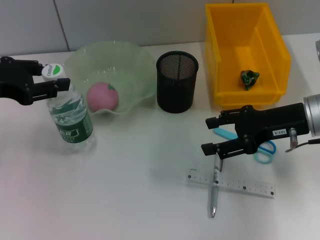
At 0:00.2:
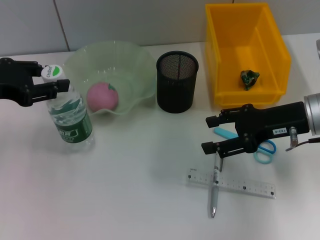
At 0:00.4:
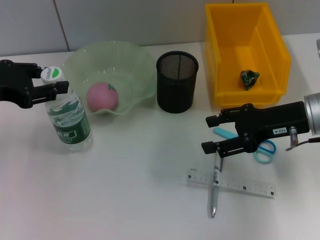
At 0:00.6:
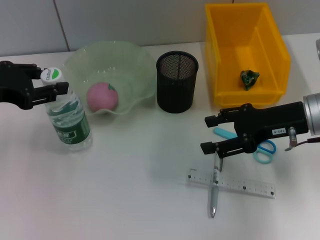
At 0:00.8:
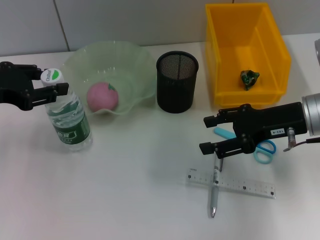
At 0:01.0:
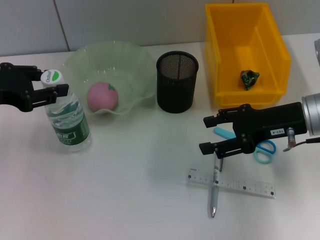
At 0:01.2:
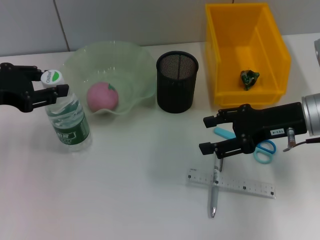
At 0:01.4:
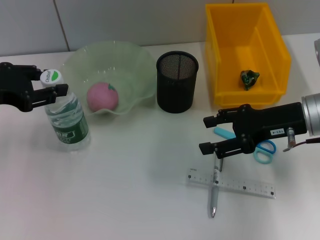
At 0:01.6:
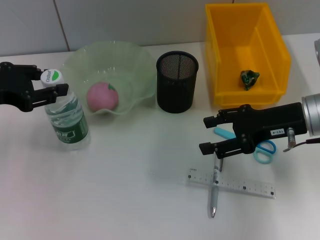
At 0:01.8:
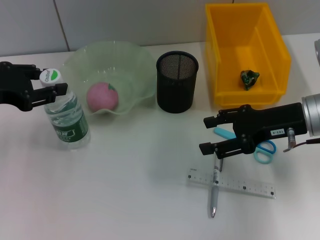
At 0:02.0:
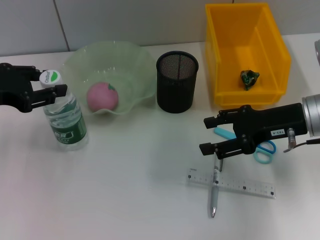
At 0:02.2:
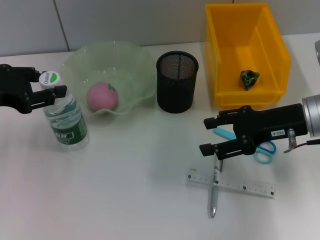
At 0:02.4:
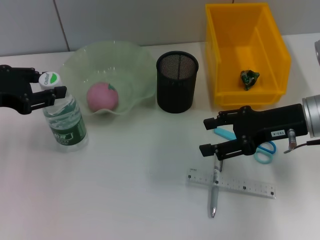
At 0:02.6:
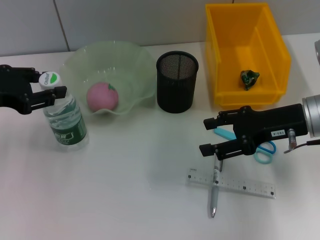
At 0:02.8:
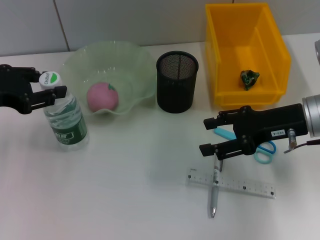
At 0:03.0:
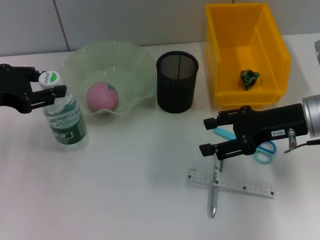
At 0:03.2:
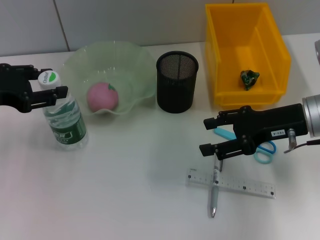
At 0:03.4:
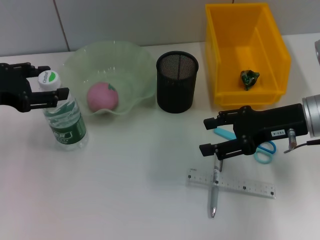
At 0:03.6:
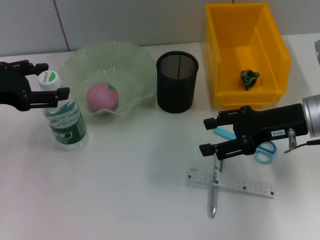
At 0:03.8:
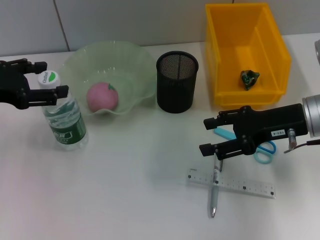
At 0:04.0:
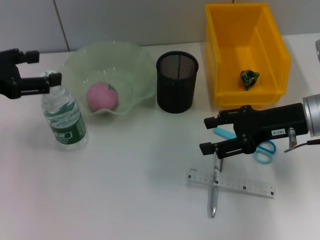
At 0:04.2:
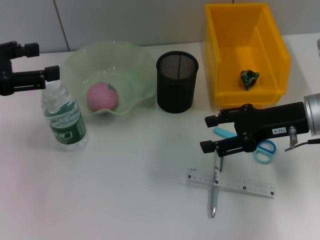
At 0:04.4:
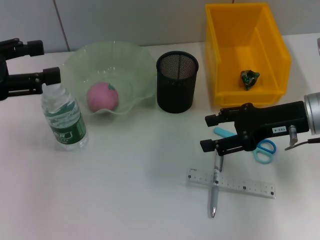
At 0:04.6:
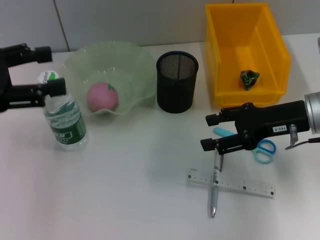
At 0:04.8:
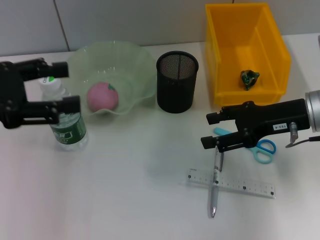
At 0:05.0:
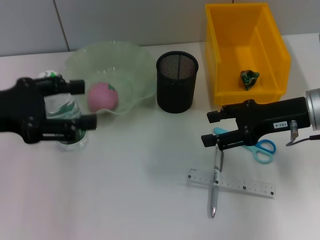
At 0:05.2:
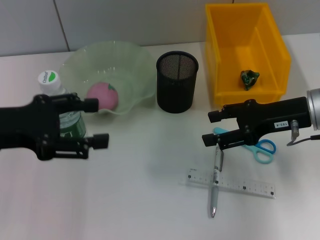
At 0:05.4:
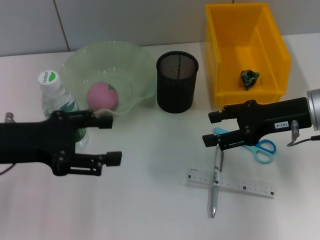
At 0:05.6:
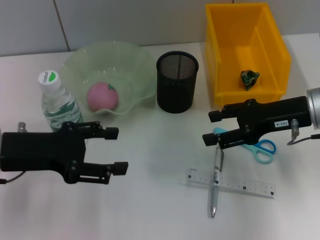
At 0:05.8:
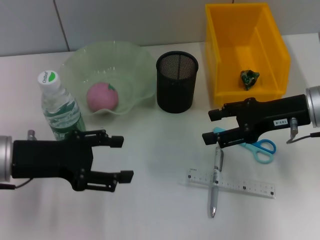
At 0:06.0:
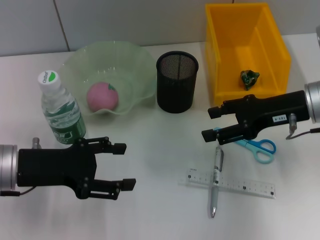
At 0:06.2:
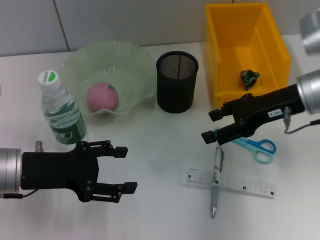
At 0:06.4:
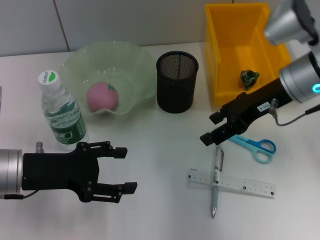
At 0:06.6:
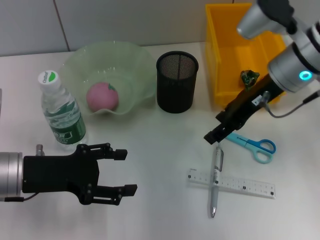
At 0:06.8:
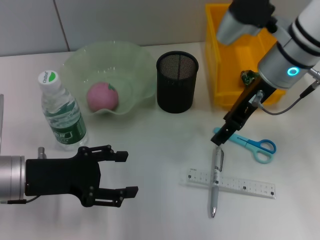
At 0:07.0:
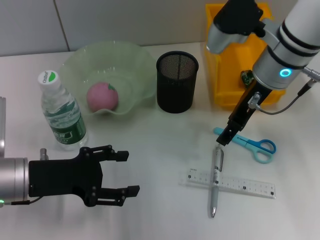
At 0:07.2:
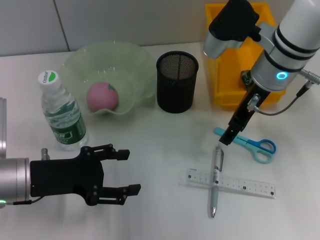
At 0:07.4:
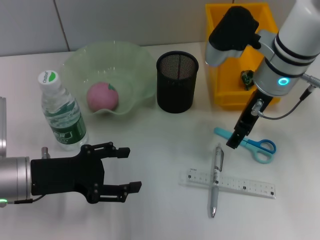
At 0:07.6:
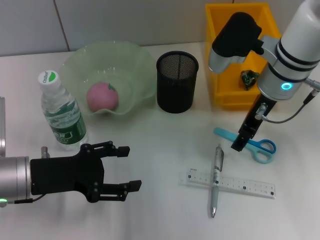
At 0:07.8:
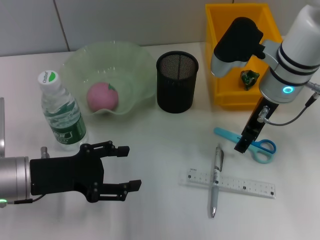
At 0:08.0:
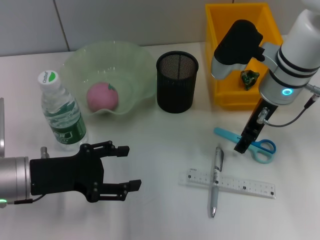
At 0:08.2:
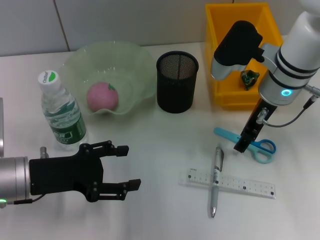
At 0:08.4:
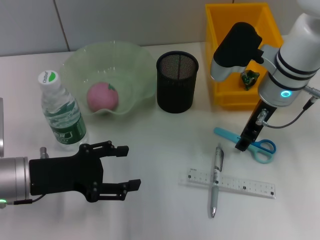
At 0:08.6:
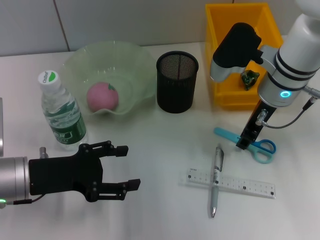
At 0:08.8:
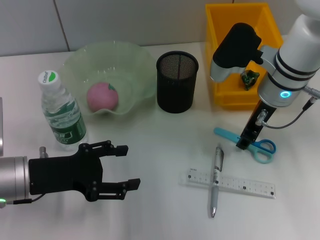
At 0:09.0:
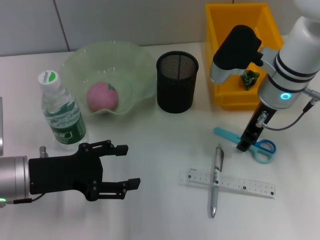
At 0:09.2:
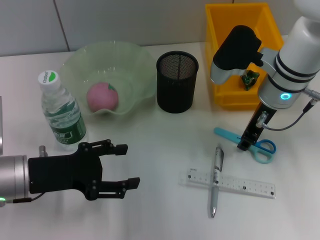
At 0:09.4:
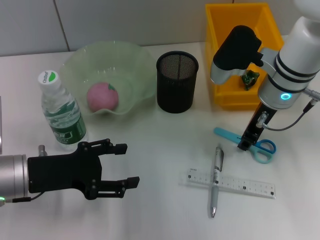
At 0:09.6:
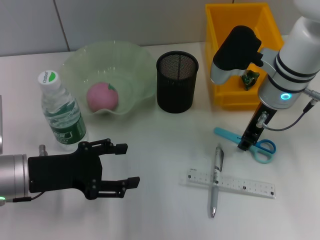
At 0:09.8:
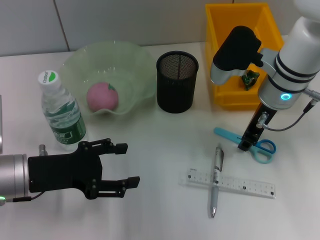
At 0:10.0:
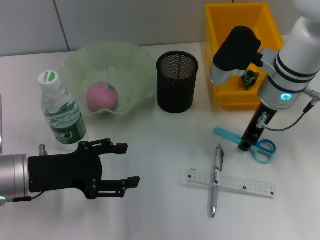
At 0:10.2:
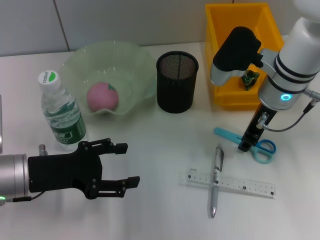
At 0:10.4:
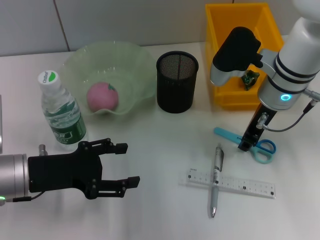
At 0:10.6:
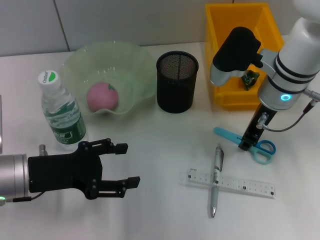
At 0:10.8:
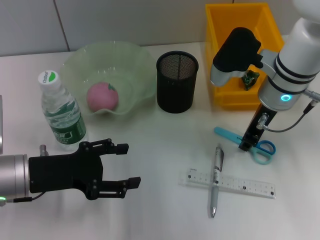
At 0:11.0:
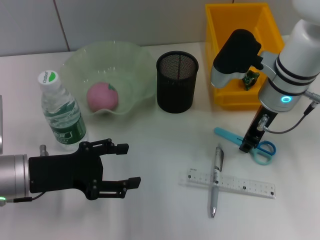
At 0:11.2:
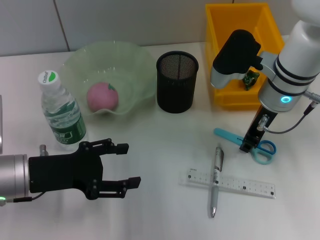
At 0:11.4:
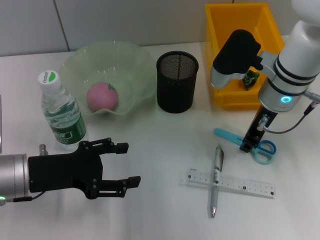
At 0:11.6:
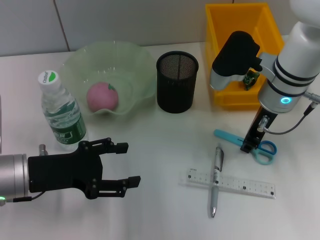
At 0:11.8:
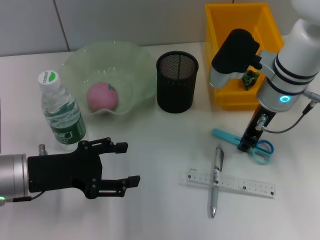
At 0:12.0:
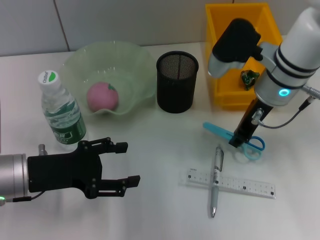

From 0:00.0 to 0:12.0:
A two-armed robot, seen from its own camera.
Step, from 0:00.0 to 0:03.6: Place the water bottle on the table with the left hand.
Step, from 0:03.8 to 0:11.4: Grab the blue utility knife with the right hand.
From 0:00.0 to 0:01.6: Both grippers stay about where they are.
From 0:01.6 to 0:03.0: Neither gripper changes place.
From 0:03.0 to 0:04.4: The left gripper moves roughly 5 cm, and opens.
From 0:04.4 to 0:06.0: The left gripper shifts about 15 cm downward and to the right.
From 0:06.0 to 0:07.6: The right gripper shifts roughly 10 cm to the left and forward.
From 0:07.6 to 0:09.0: The right gripper closes up.
From 0:09.0 to 0:10.4: The two grippers keep their place.
From 0:10.4 to 0:12.0: The grippers make only small movements.

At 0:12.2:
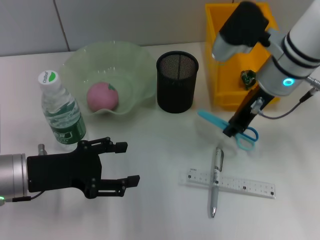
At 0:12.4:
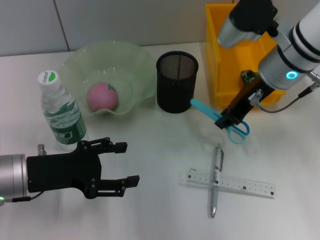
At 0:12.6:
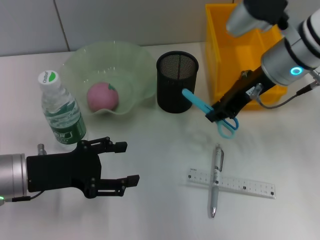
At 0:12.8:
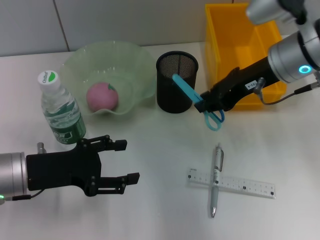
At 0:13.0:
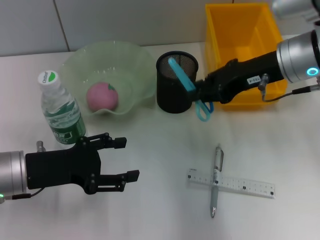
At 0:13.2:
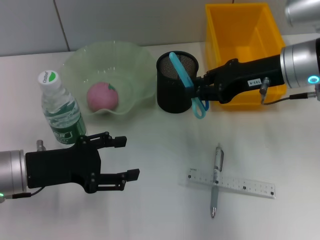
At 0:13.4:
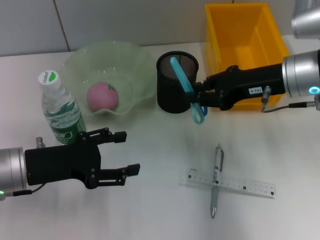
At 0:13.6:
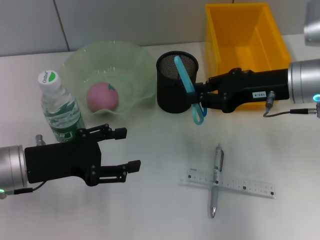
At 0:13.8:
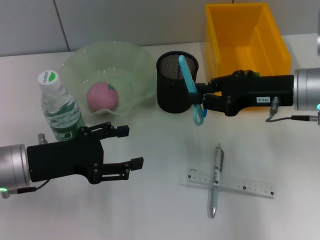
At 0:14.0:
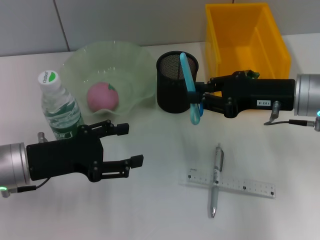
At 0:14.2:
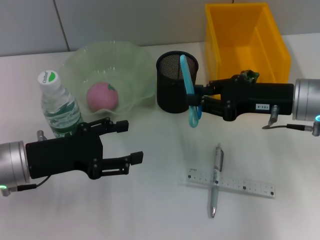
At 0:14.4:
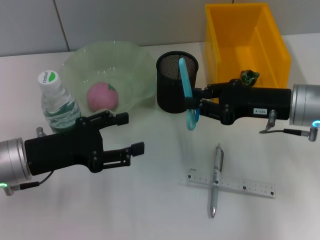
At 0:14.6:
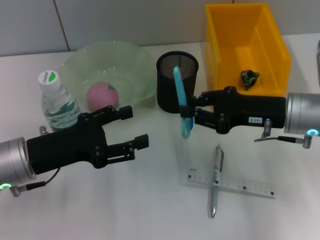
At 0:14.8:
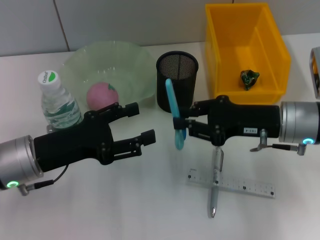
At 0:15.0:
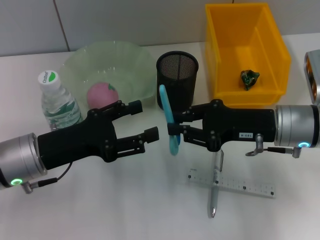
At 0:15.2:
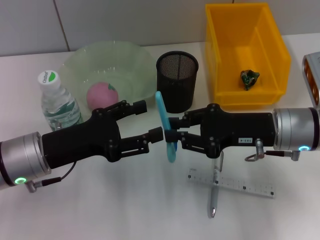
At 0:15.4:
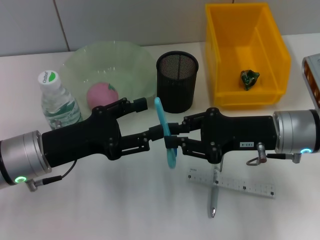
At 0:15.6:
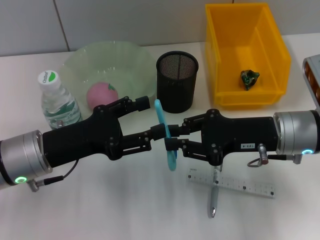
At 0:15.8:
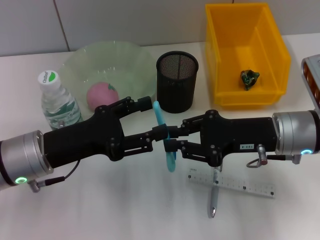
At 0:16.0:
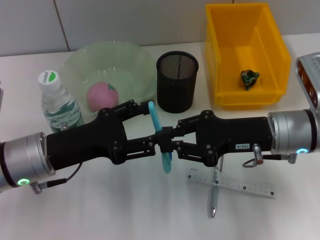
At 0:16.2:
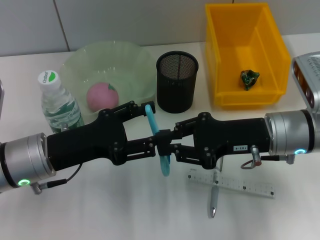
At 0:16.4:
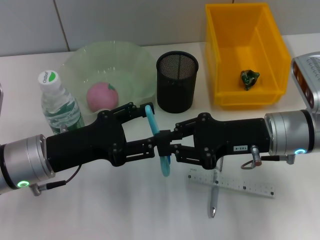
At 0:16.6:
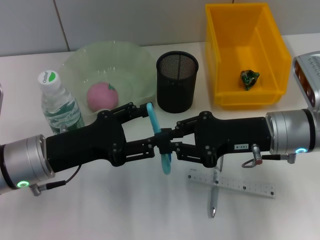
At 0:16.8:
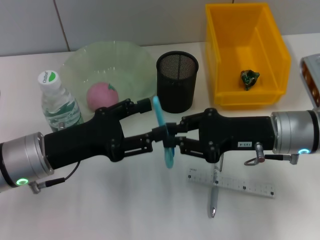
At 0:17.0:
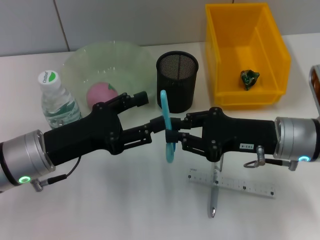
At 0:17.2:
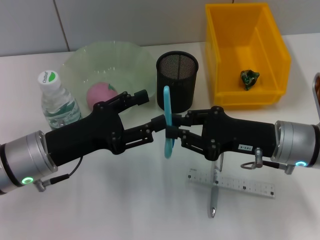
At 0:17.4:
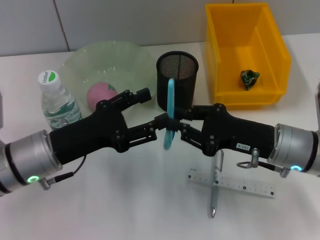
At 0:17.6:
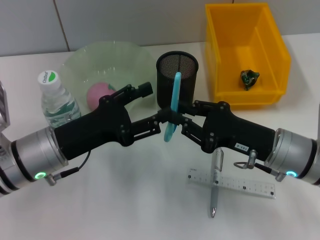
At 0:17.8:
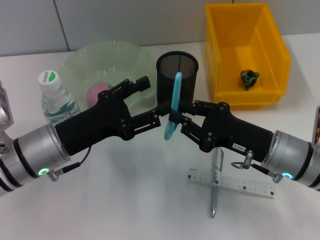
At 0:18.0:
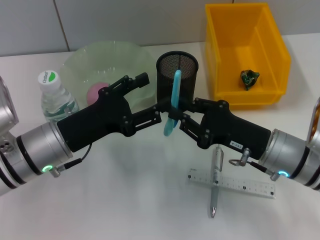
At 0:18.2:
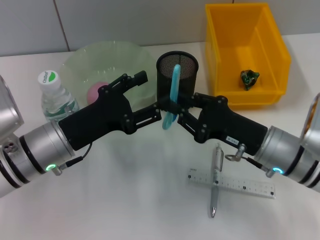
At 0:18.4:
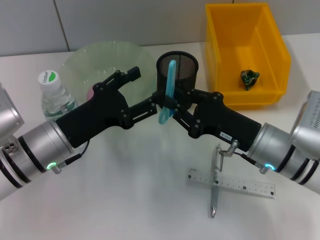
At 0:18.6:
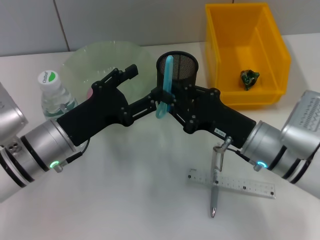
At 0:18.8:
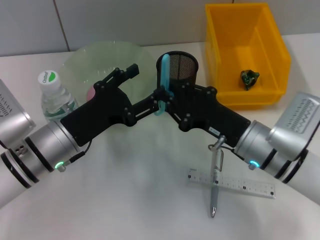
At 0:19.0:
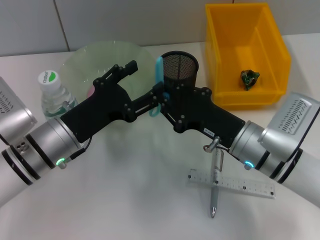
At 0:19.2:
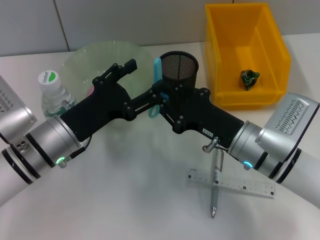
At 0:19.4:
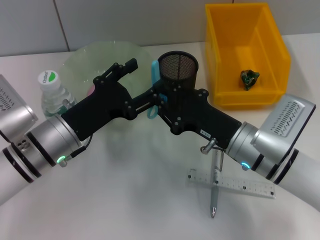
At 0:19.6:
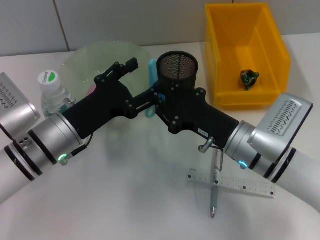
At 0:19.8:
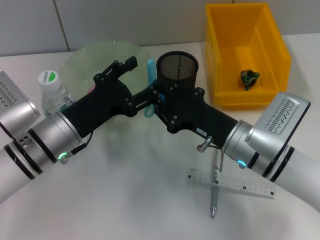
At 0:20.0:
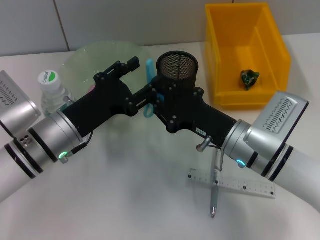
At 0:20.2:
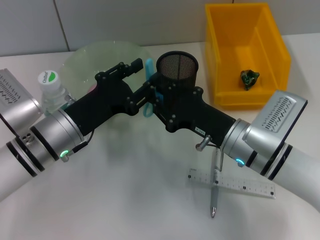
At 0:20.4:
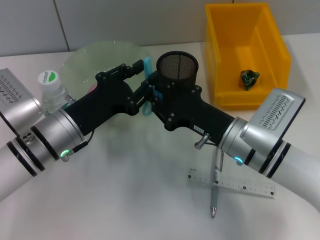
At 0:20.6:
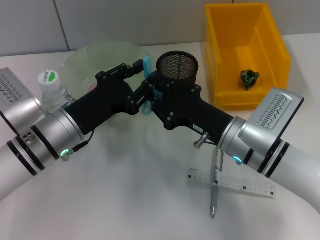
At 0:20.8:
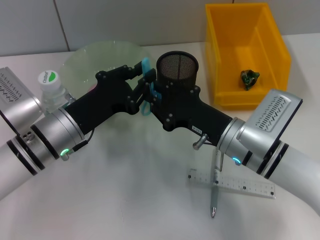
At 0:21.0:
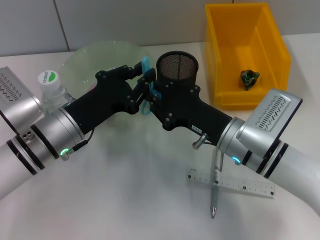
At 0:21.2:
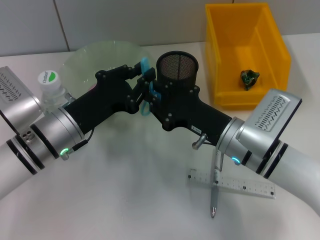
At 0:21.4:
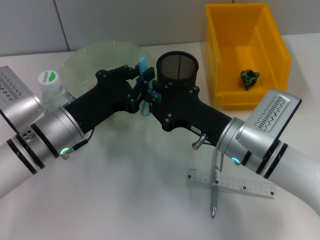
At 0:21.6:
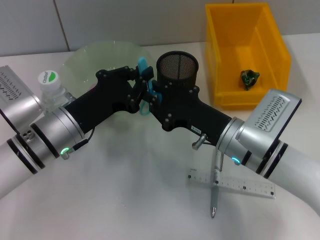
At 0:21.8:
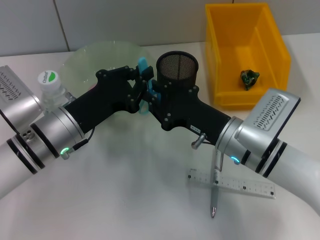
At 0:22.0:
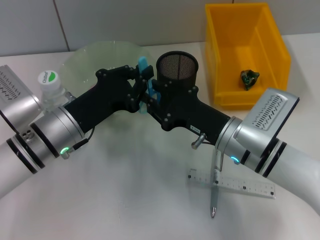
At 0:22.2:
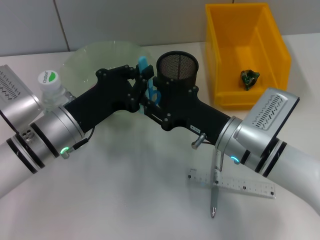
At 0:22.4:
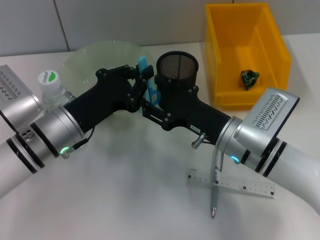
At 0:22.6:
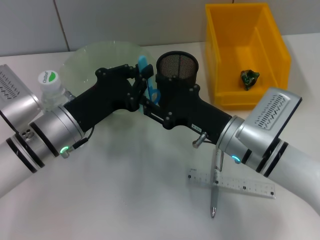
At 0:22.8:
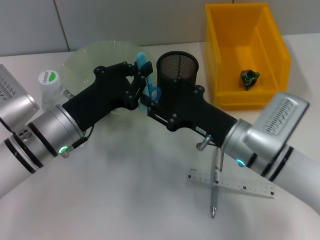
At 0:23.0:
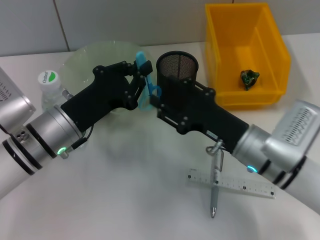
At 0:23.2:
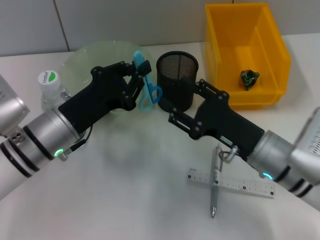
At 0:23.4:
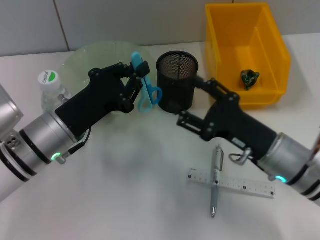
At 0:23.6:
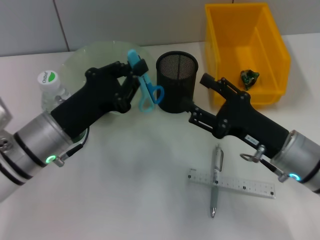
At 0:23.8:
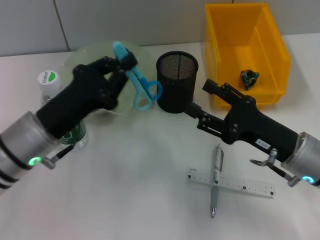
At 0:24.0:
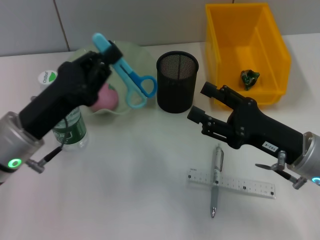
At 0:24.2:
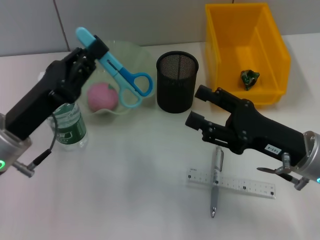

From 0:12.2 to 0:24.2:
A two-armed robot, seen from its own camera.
Step, from 0:12.2 to 0:22.4: Pass the blue scissors from the right hand to the left hand.
From 0:12.2 to 0:13.8: The right gripper is displaced to the right by approximately 5 cm.
From 0:13.8 to 0:15.2: The right gripper changes place by roughly 5 cm.
From 0:15.2 to 0:16.6: The grippers make only small movements.
From 0:16.6 to 0:18.2: The right gripper shifts some 5 cm downward.
From 0:19.8 to 0:21.2: The left gripper closes up.
From 0:21.2 to 0:22.6: The right gripper opens its fingers.
From 0:22.6 to 0:24.2: The right gripper shifts roughly 10 cm to the right, while the left gripper shifts about 5 cm to the left.
